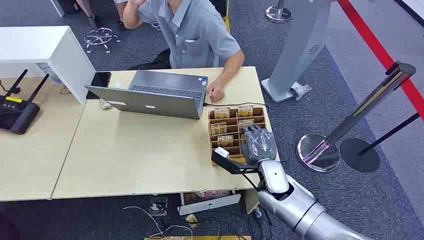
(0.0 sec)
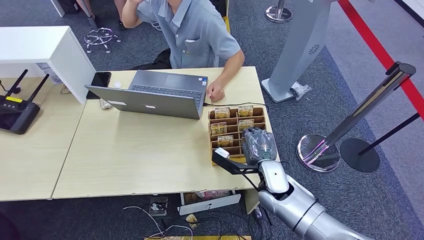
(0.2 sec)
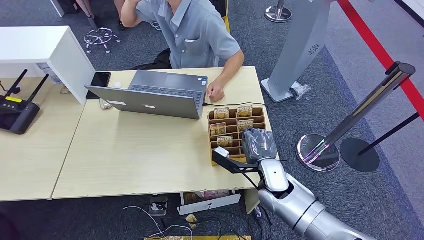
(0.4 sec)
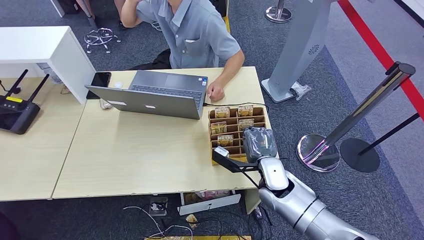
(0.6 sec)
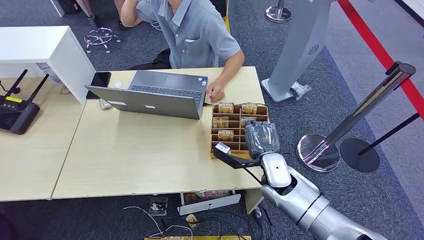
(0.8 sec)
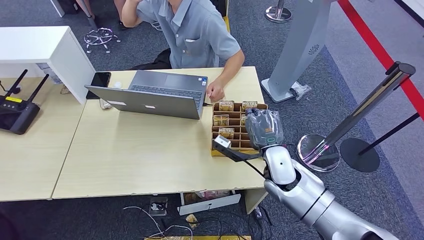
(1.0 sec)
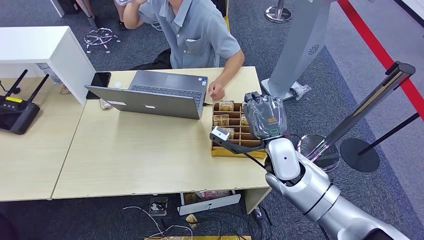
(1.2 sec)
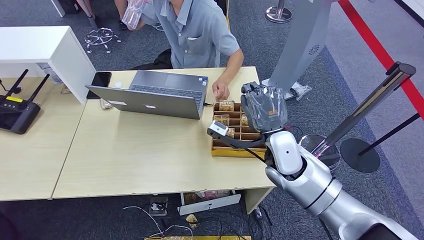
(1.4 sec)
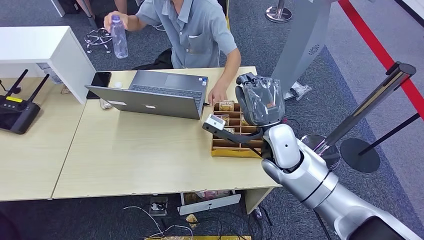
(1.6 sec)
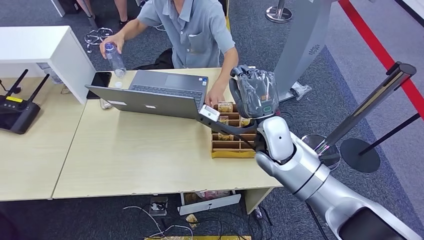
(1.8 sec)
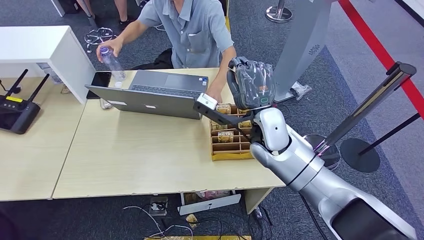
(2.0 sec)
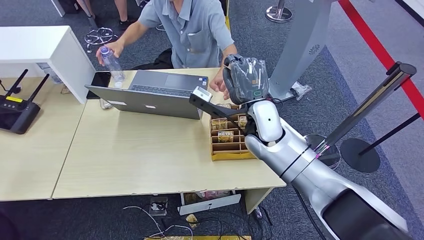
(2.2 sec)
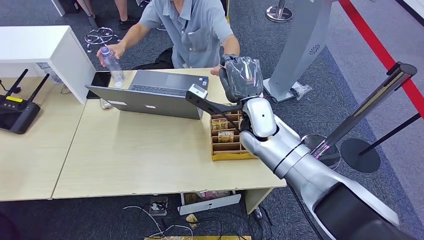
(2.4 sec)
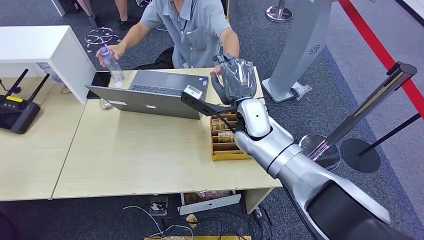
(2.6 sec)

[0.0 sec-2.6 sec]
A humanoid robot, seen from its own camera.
Step, 0.0 sec to 1.4 sec: Pick up the room card from the card holder.
Step, 1.6 sec to 2.6 sec: Hand the room card to the target.
1.2 sec to 2.6 sec: The left hand heads forward, covering approximately 5 cm, while the right hand is displaced to the left and forward by approximately 10 cm.

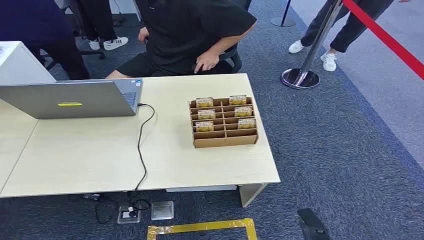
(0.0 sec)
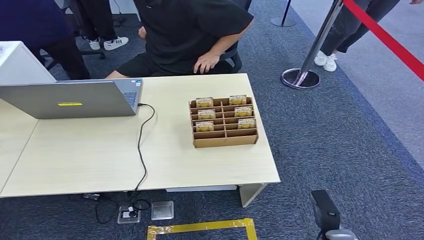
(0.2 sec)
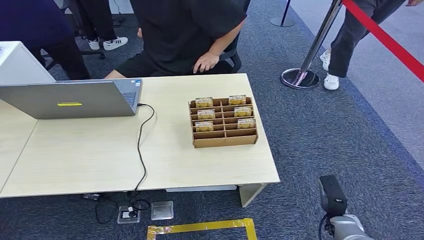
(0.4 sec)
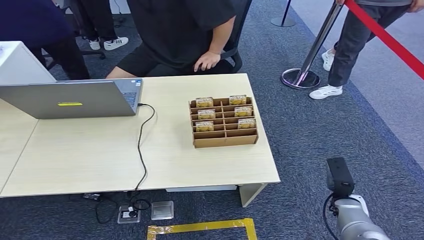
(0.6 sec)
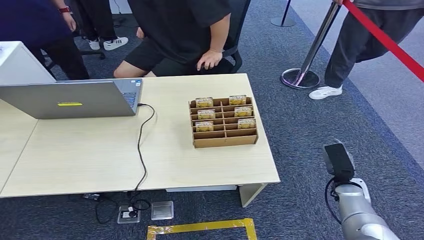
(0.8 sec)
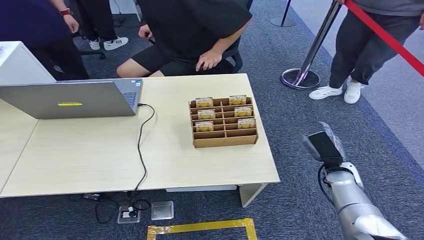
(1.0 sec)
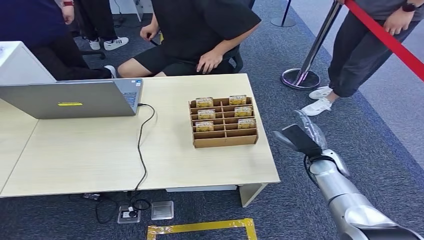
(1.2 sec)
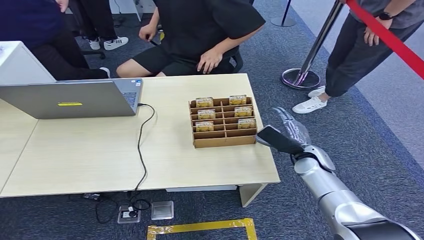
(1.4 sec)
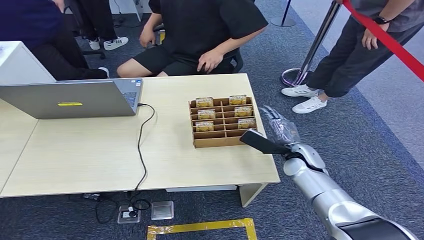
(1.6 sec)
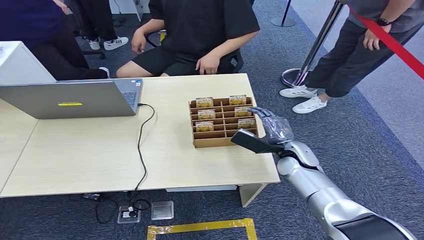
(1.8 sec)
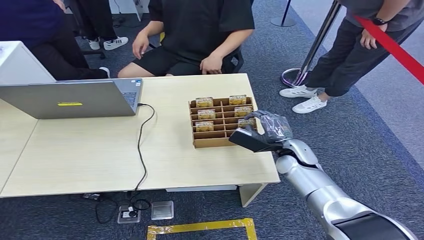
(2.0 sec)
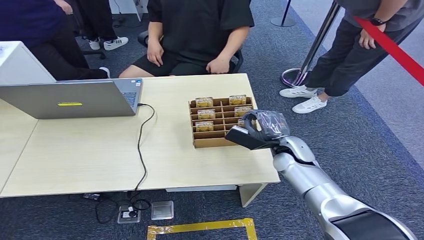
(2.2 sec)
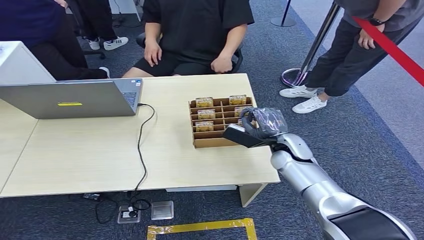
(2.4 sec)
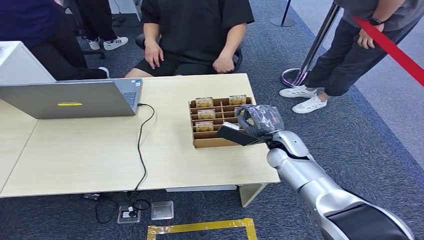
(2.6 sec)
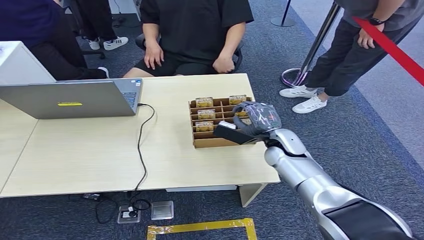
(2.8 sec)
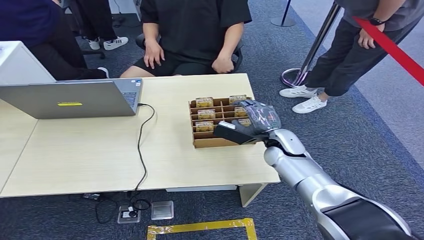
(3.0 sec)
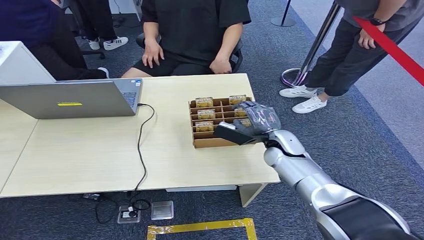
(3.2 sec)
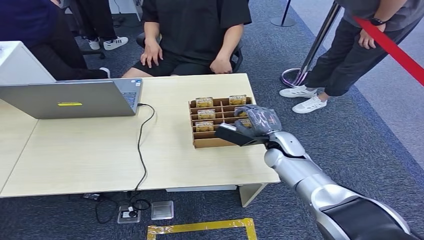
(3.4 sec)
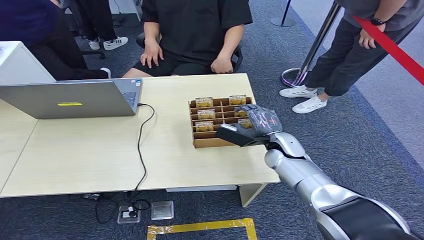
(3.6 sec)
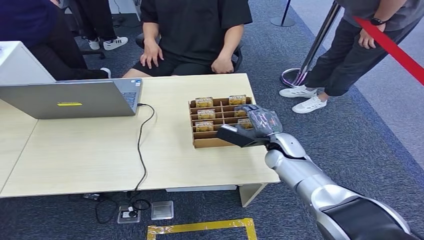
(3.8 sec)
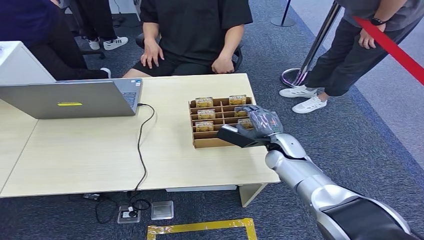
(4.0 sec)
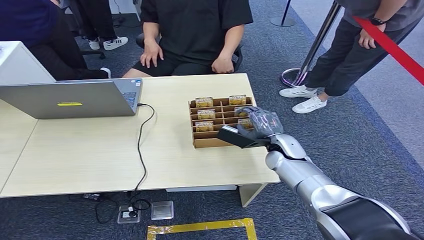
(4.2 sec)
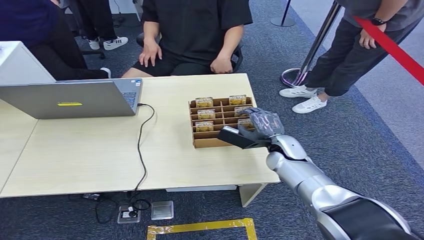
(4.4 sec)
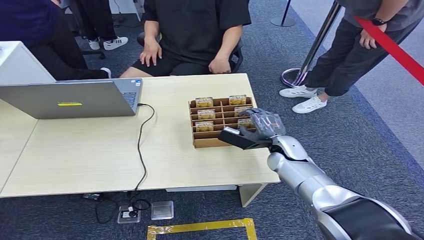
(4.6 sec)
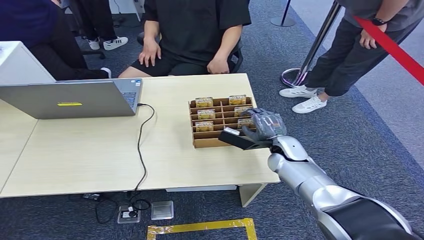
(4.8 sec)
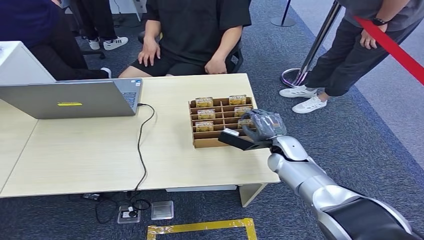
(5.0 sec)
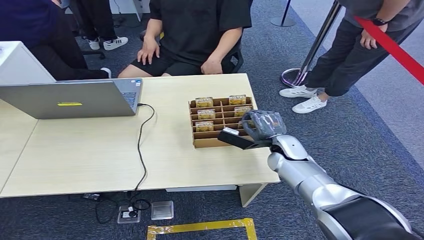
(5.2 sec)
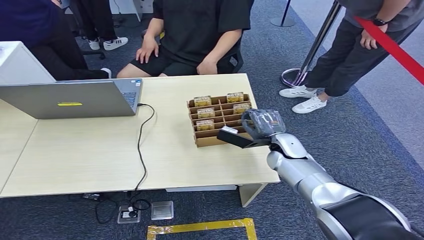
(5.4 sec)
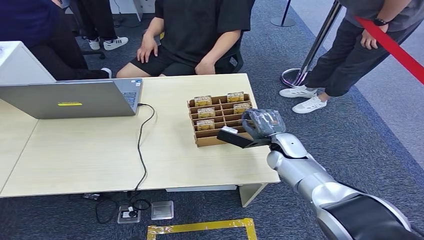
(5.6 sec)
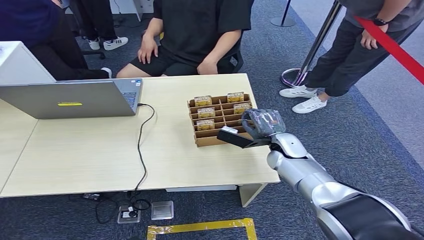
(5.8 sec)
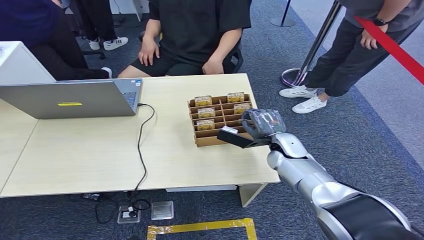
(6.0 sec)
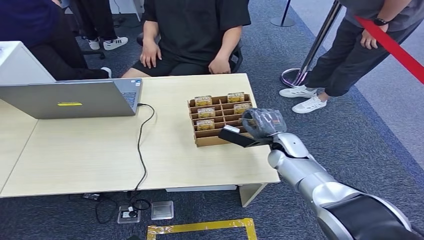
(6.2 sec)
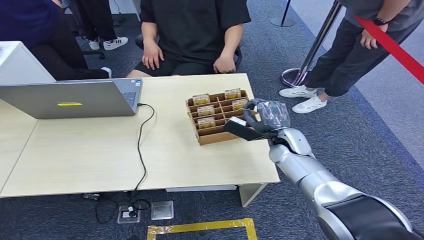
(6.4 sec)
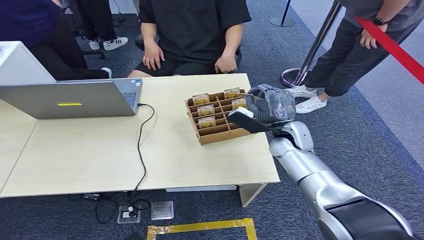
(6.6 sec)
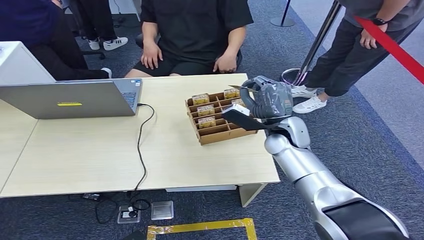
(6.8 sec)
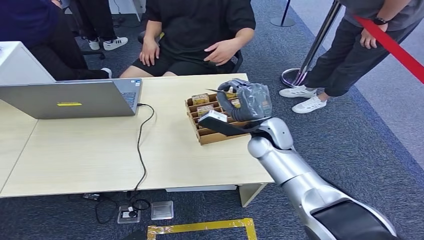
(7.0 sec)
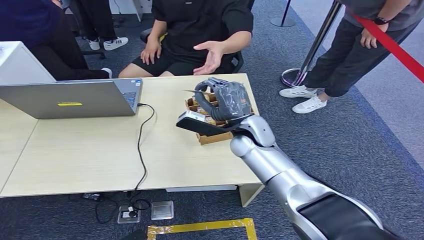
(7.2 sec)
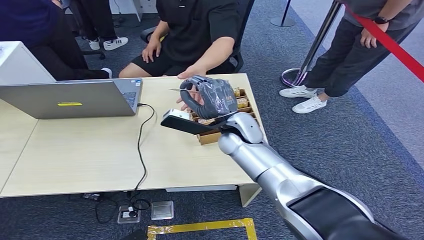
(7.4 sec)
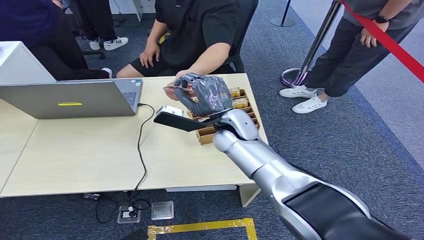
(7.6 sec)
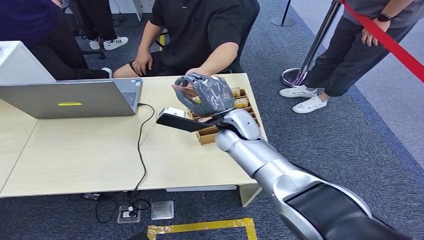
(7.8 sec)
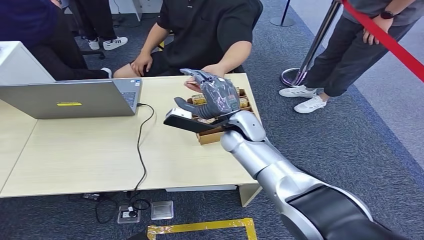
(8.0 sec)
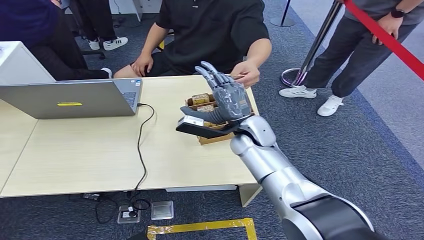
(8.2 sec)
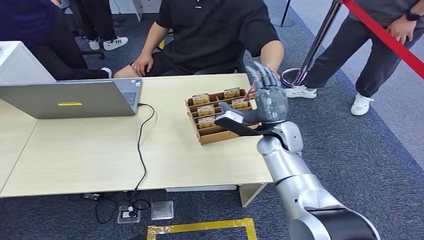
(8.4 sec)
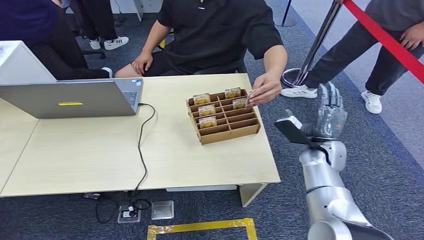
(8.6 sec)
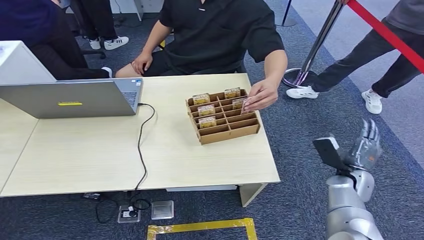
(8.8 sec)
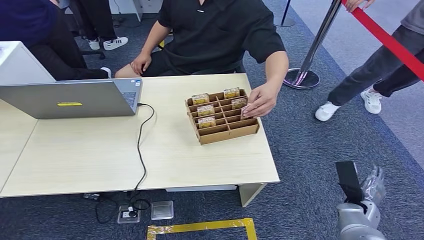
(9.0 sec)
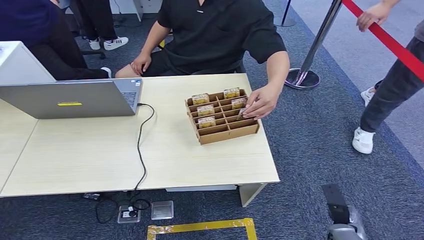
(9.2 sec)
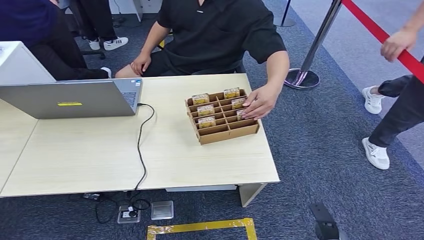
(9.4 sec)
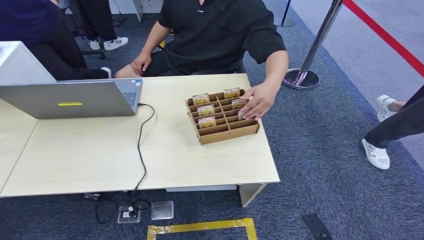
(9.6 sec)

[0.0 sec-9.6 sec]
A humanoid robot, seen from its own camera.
Step, 0.0 sec to 6.2 sec: Pick up the room card from the card holder.
Step, 6.4 sec to 9.6 sec: Hand the room card to the target.
1.6 sec to 4.8 sec: The hands make only small movements.
4.8 sec to 6.4 sec: The right hand is displaced upward by roughly 5 cm.
6.4 sec to 8.0 sec: The right hand heads to the left, covering approximately 10 cm.

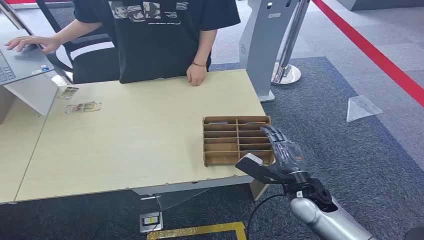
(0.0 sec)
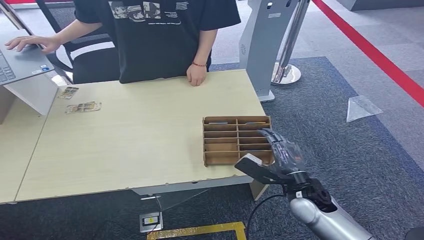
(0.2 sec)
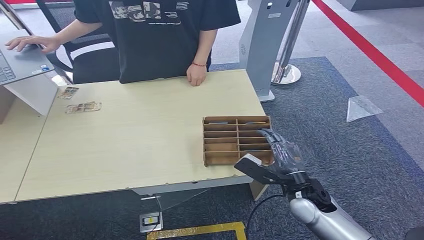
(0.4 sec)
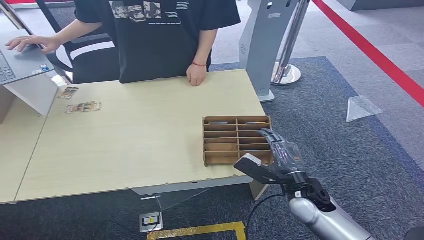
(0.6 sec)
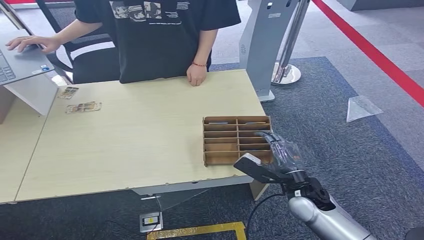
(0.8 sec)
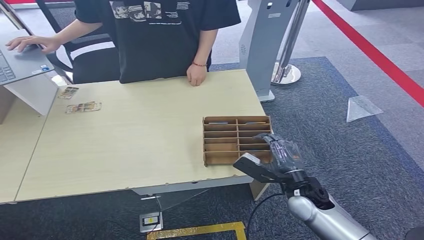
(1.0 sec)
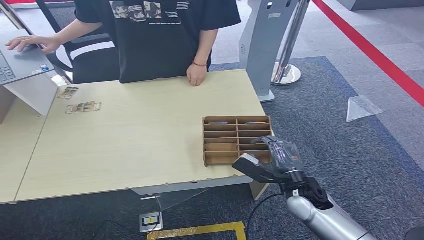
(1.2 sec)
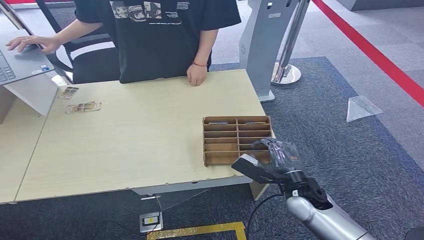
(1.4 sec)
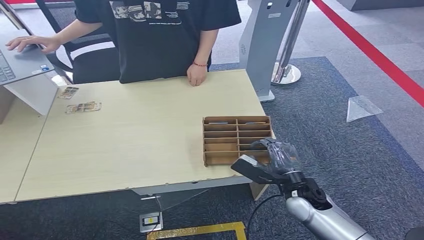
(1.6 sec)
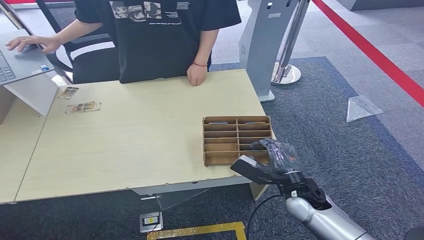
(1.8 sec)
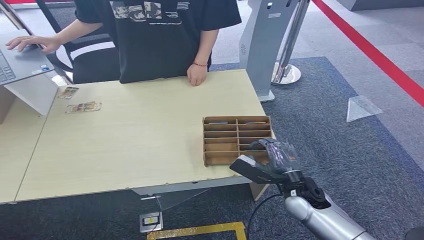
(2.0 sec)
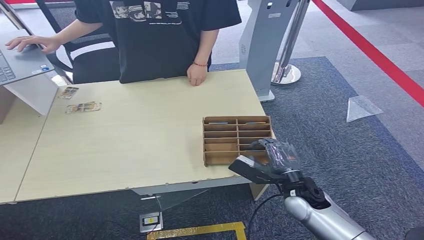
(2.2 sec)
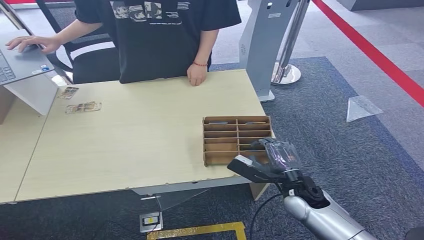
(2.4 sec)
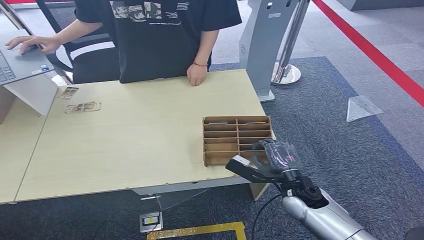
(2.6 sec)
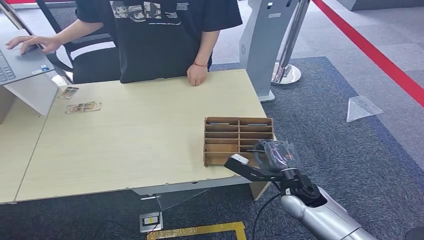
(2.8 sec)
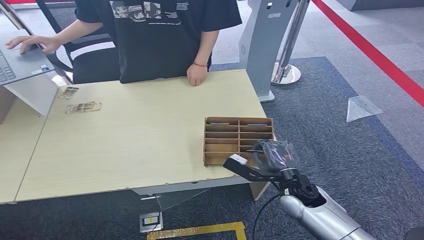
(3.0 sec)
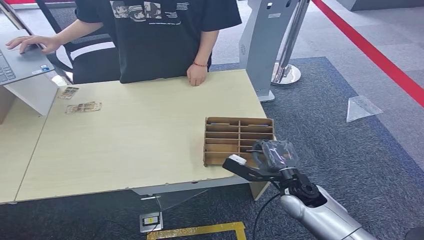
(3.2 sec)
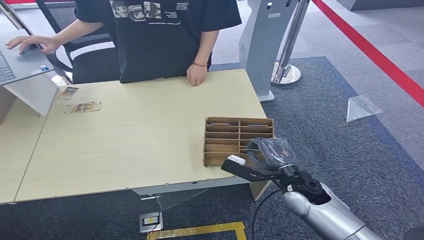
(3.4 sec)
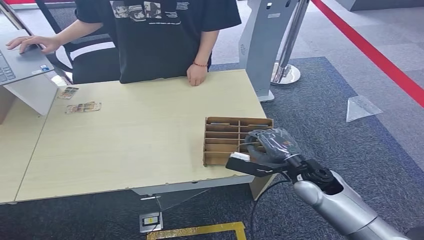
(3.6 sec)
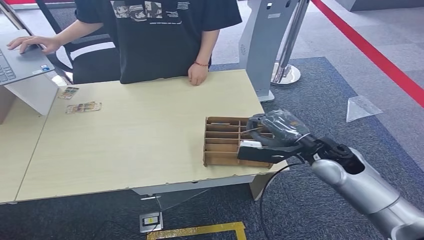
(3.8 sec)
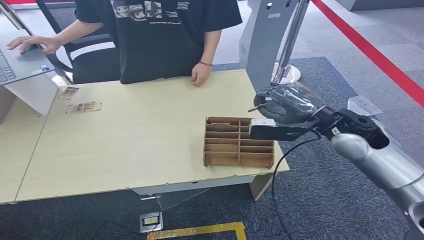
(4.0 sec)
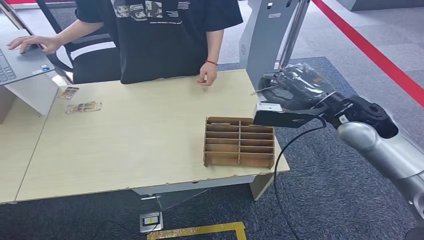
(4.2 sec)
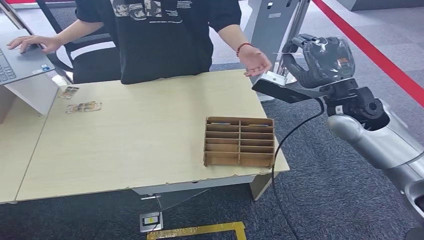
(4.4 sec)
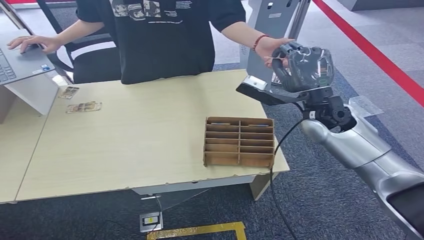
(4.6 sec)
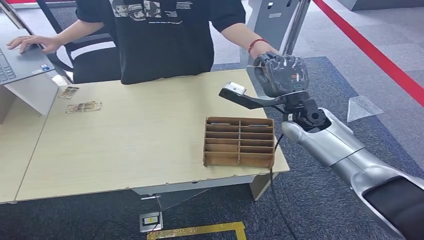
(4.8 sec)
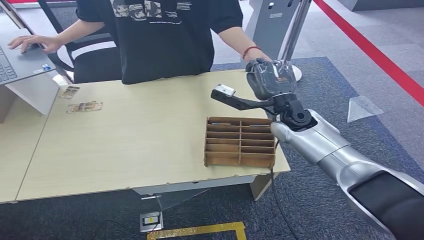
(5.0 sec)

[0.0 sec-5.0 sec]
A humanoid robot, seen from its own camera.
Step, 0.0 sec to 3.8 sec: Pick up the room card from the card holder.
Step, 4.0 sec to 5.0 sec: Hand the room card to the target.
1.6 sec to 3.4 sec: The right hand moves upward, roughly 10 cm.
3.4 sec to 5.0 sec: The right hand is displaced forward by some 15 cm, and reaches about 20 cm upward, then returns.
